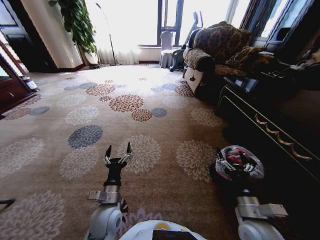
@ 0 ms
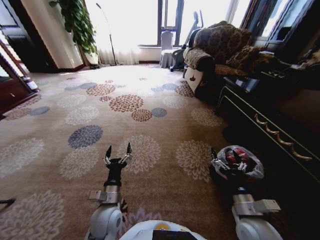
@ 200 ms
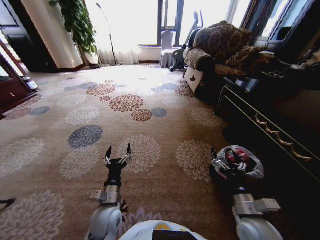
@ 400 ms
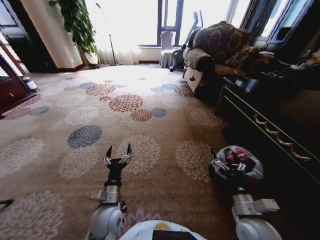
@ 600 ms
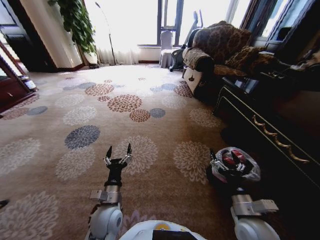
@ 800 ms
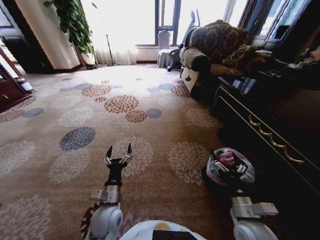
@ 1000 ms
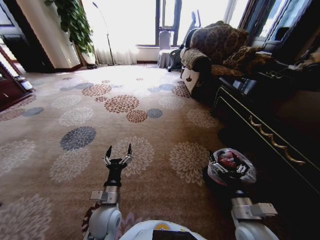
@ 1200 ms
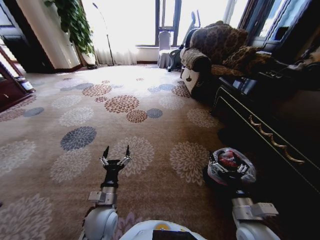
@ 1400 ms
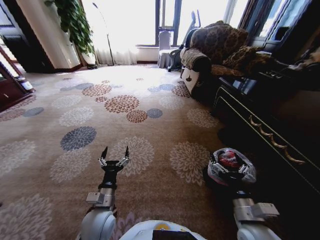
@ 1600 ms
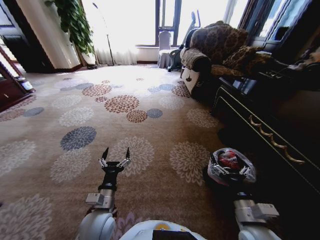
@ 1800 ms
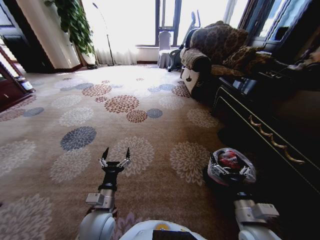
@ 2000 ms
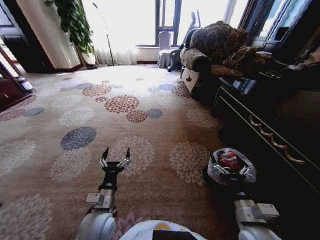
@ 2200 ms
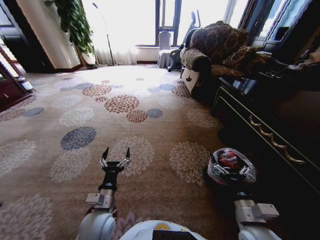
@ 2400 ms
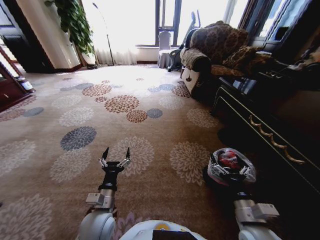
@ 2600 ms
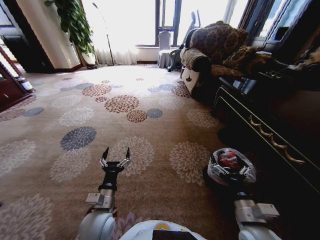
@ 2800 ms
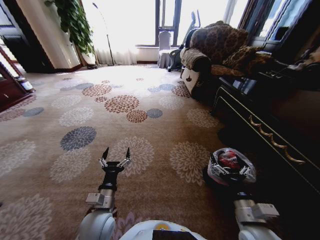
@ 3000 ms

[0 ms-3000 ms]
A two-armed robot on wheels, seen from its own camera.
Task of the whole recording: Pick up the trash from the ground and place it into the trash bin.
0 ms to 1600 ms: The grippers move only a little.
1600 ms to 3000 ms: Both grippers stay put.
